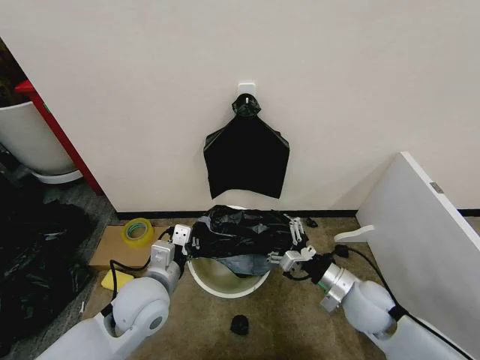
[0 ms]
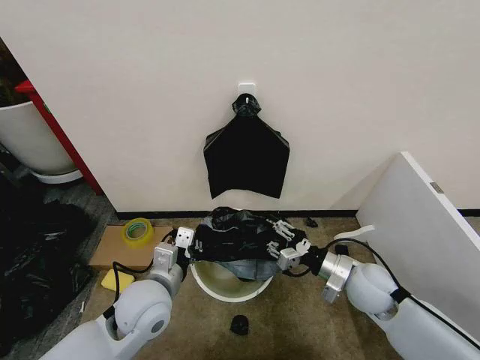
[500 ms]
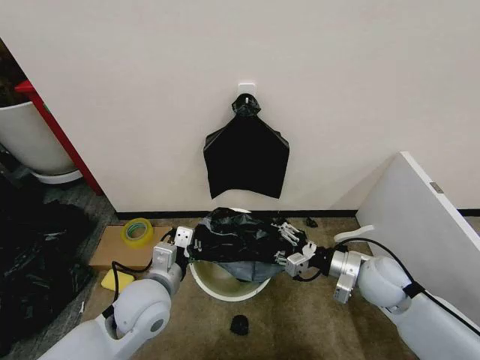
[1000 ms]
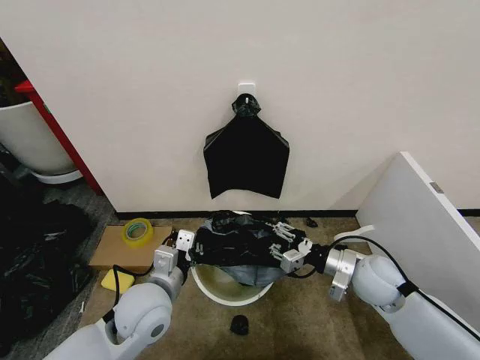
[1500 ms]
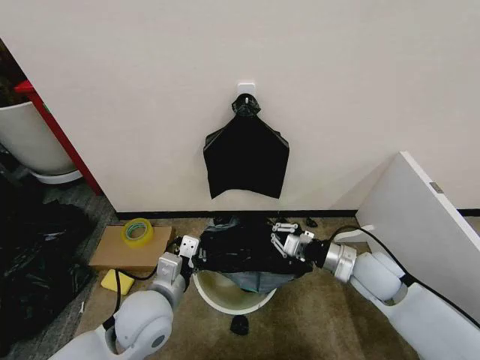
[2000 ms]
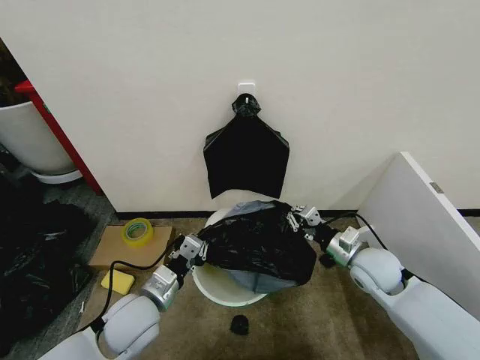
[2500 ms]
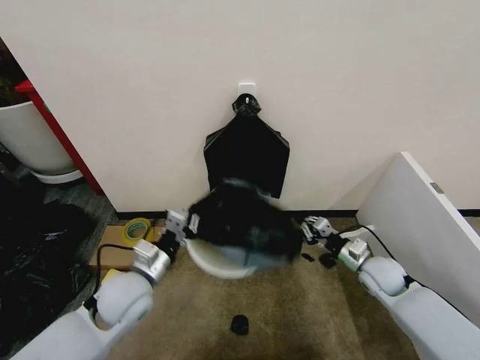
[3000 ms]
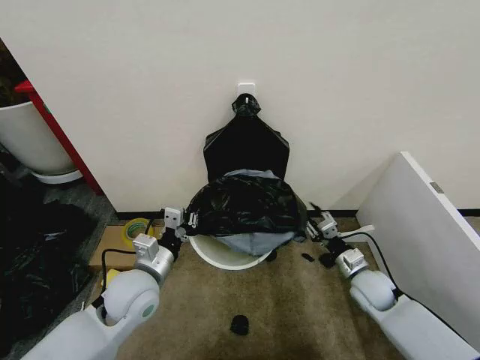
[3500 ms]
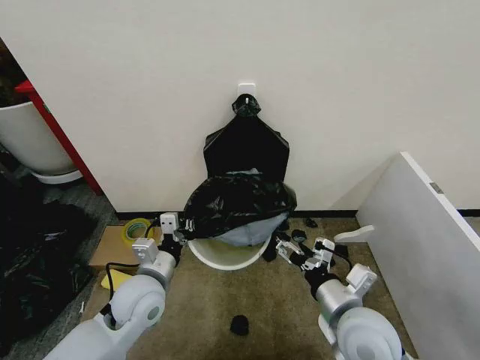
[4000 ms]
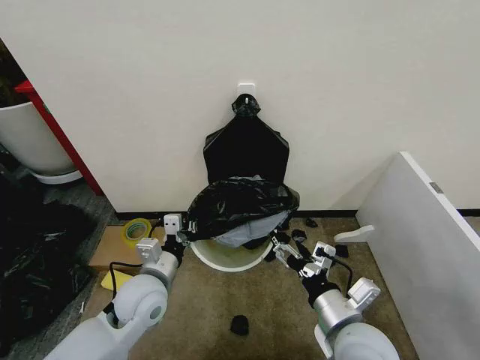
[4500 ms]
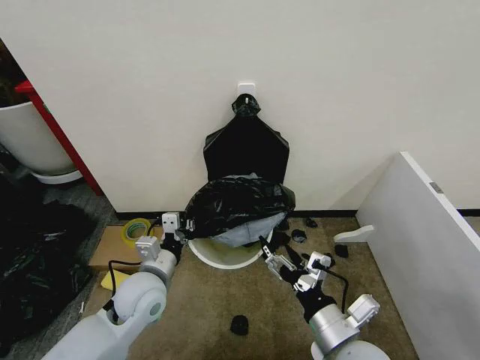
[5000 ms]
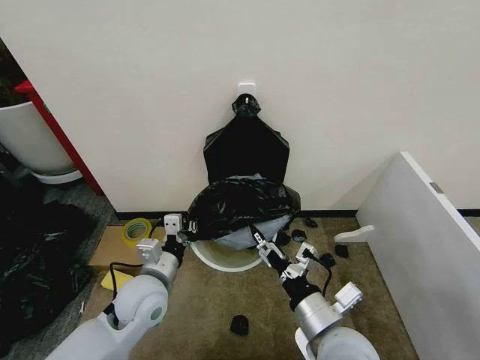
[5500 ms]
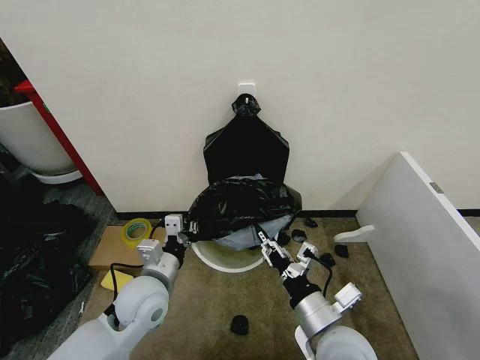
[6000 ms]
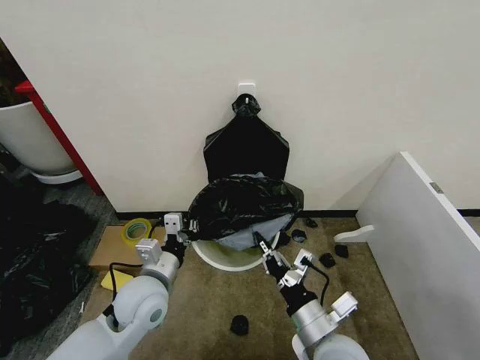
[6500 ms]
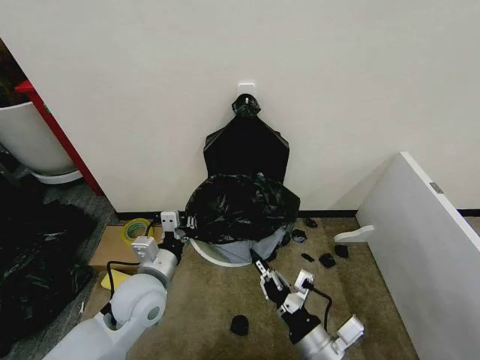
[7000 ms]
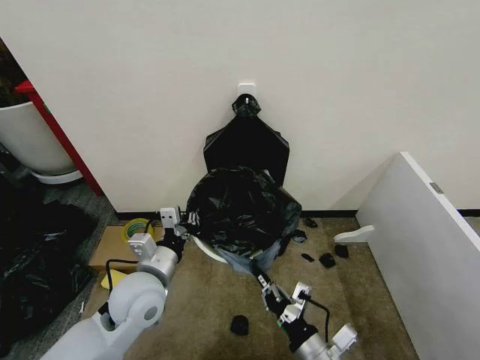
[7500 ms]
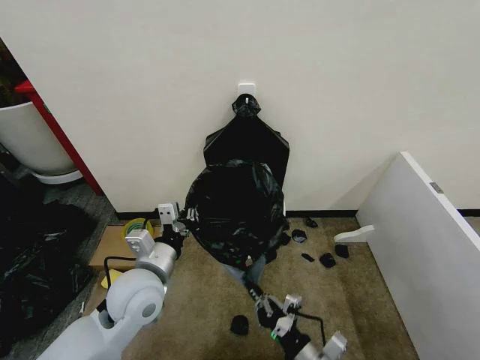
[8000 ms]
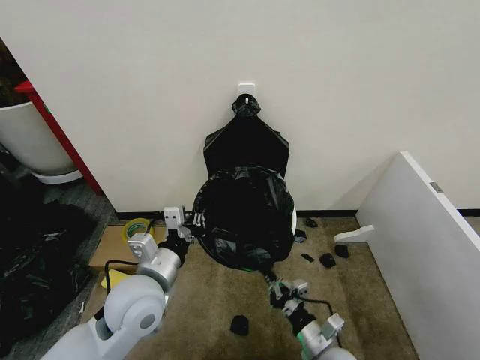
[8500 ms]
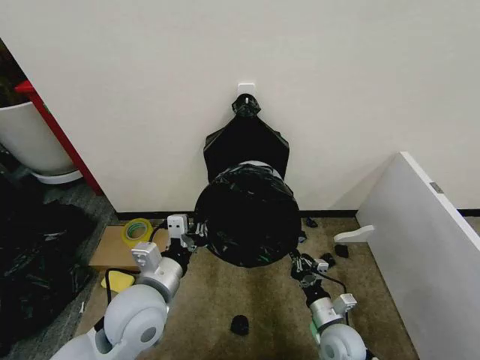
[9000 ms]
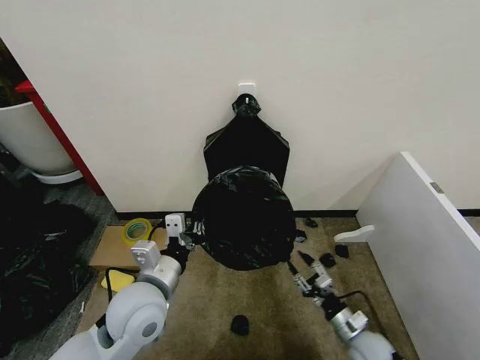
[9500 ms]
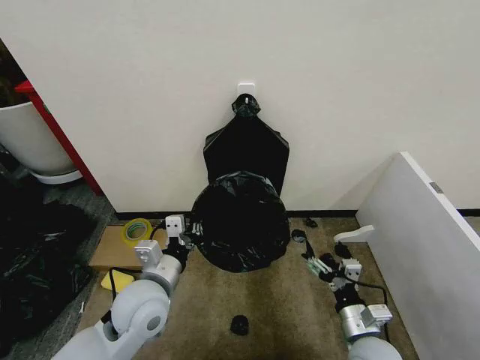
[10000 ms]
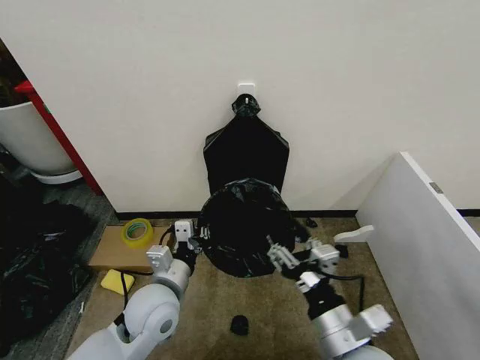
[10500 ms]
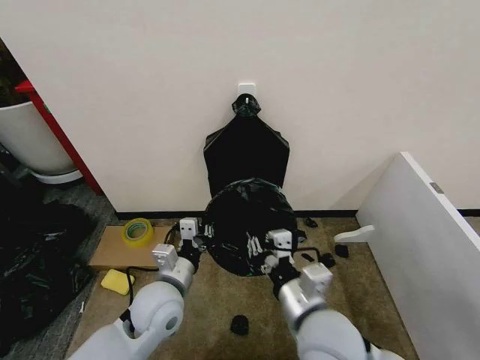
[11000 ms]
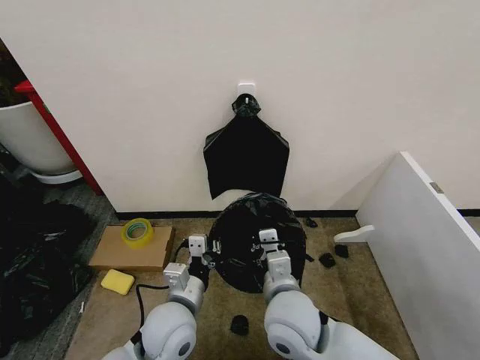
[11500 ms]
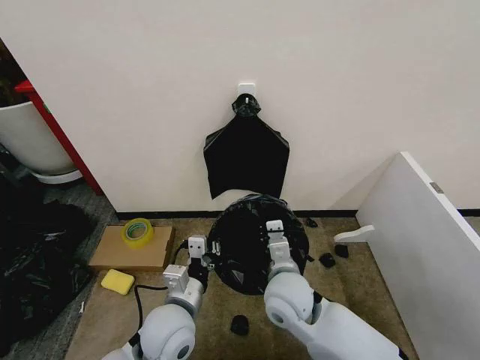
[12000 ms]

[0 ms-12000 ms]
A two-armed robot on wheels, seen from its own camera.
Task of the whole recording: Place the garbage bag over the trash bin.
0 ms to 2000 ms: The right gripper changes place by approximately 5 cm, and closes its fingers.
2000 ms to 4000 ms: The right gripper is displaced backward and to the left by some 10 cm, and opens up.
4000 ms to 6000 ms: The right gripper goes roughly 5 cm to the left and backward, and closes up.
6000 ms to 8000 ms: The right gripper travels downward and backward by roughly 10 cm, and closes its fingers.
8000 ms to 10000 ms: The right gripper shifts some 10 cm to the right and forward, and opens up.
10000 ms to 12000 ms: The right gripper moves to the left, forward and upward, approximately 20 cm, and closes its fingers, while the left gripper shifts by about 5 cm.

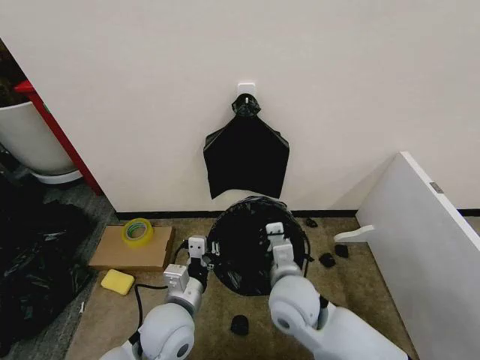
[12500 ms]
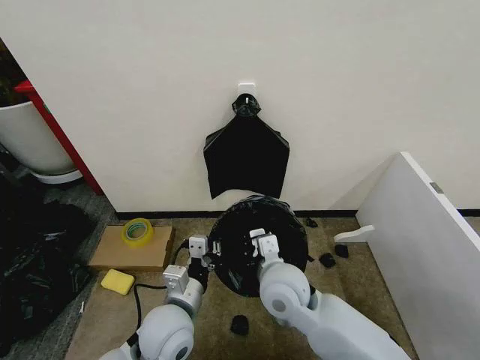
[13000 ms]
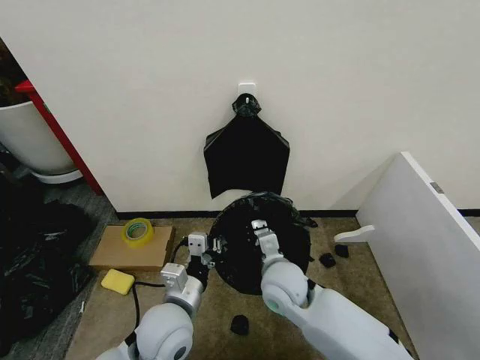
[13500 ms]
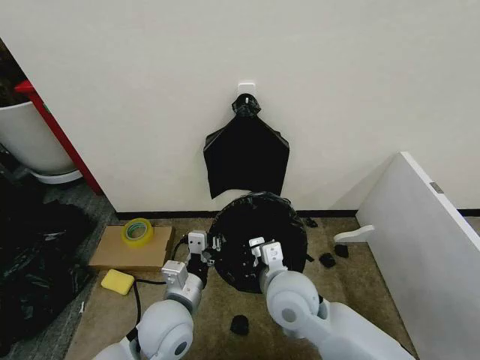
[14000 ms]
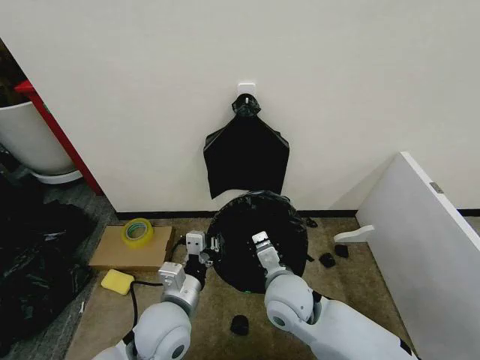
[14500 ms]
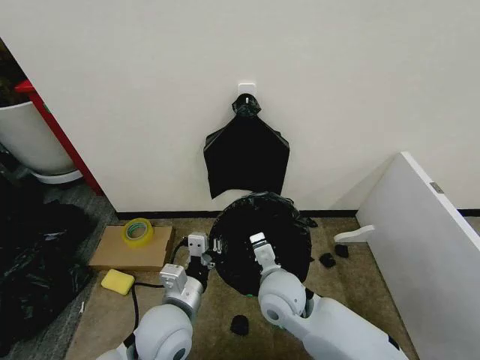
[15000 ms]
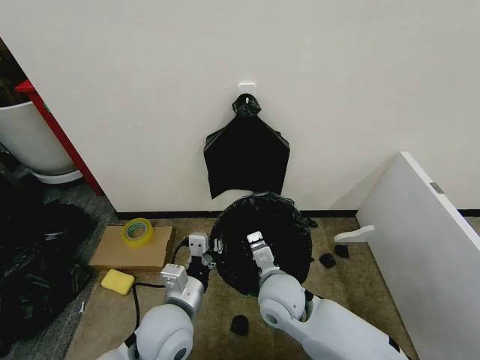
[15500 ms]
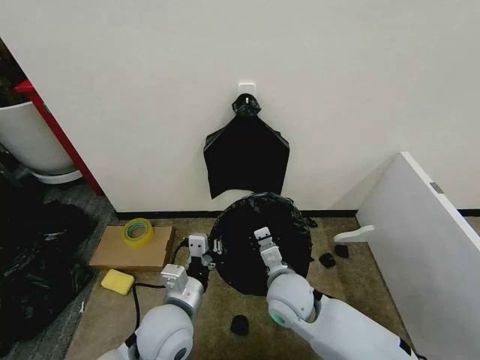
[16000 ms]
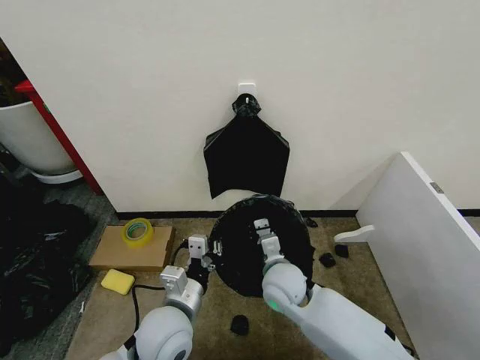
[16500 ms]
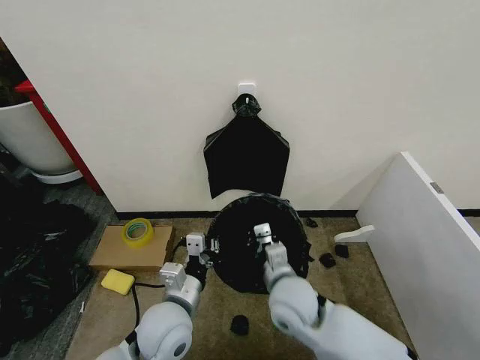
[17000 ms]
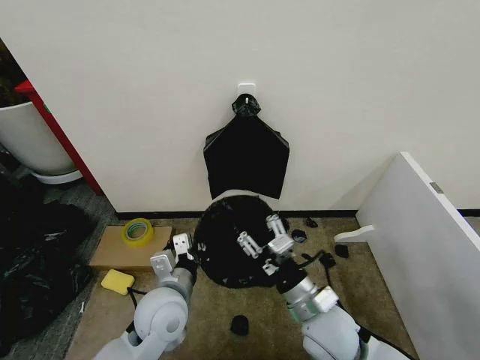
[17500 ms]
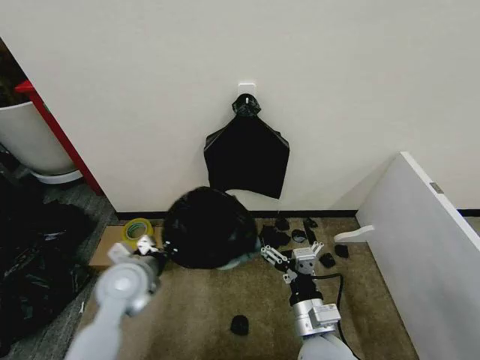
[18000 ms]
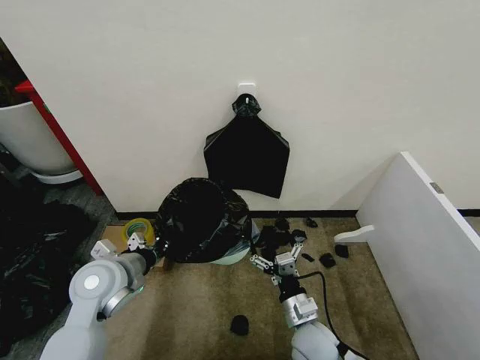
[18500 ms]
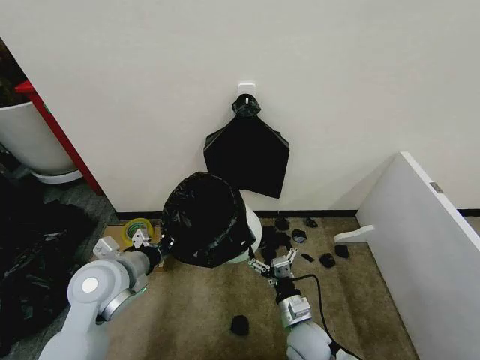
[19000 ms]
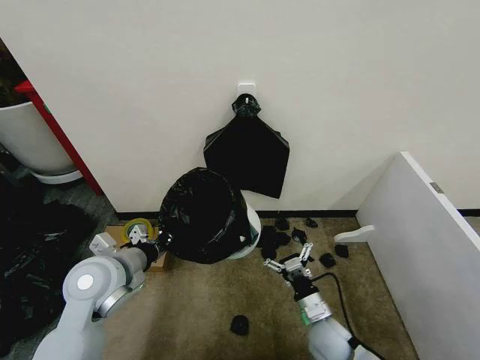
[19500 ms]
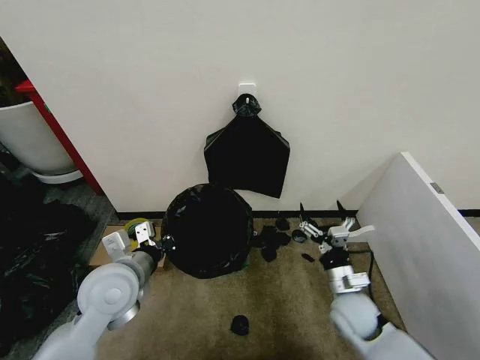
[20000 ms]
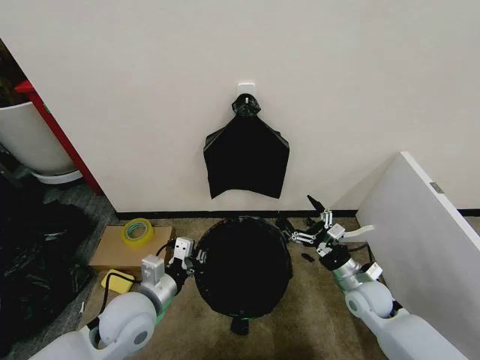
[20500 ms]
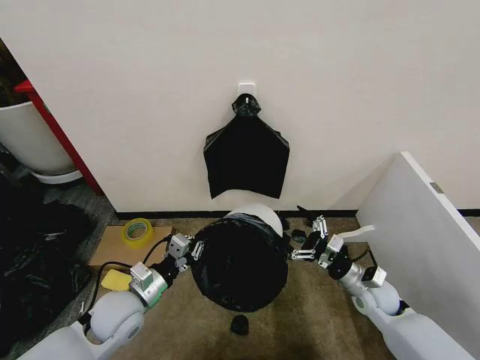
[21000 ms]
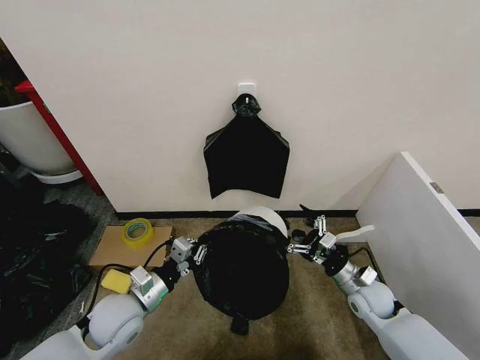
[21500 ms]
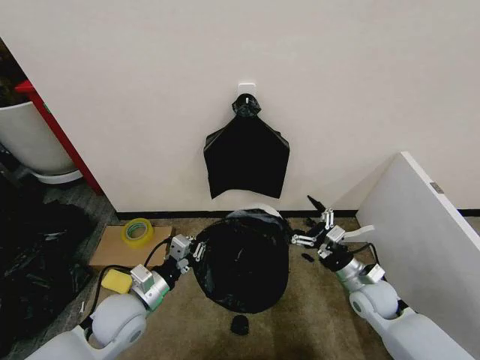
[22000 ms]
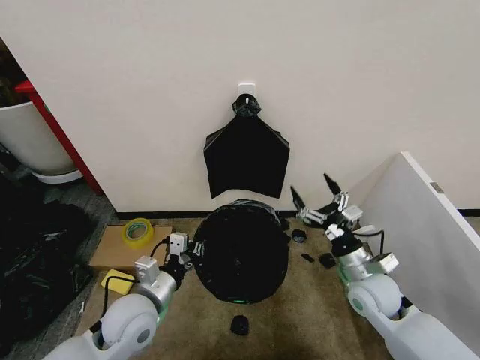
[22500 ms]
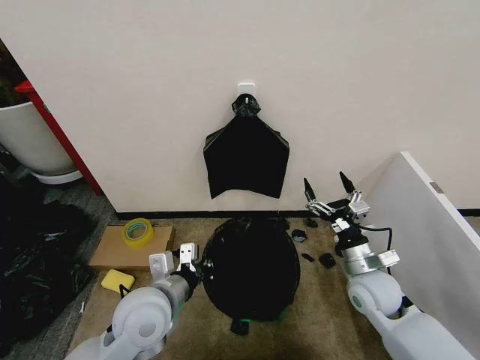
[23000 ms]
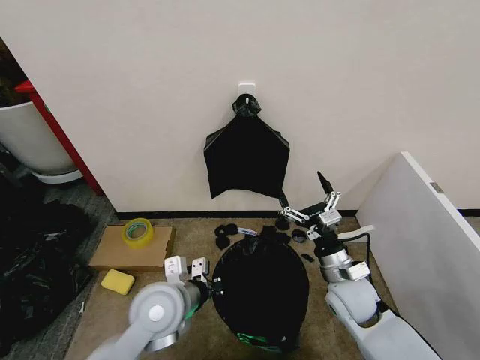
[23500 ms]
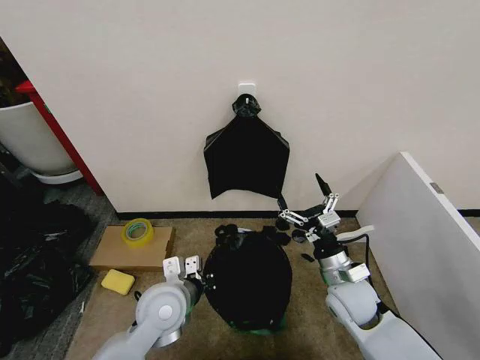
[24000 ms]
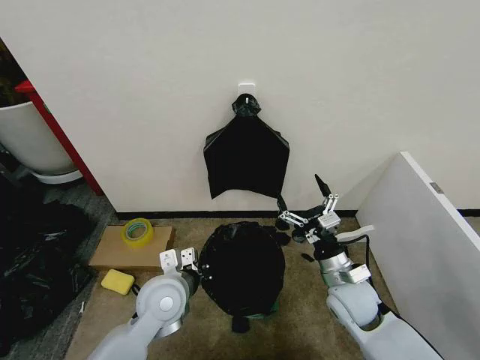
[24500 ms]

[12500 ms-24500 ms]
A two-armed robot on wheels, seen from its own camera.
Task of the whole recording: Place the garbage bag over the trash bin.
14500 ms to 16500 ms: The right gripper moves about 5 cm.
16500 ms to 18500 ms: The left gripper goes roughly 15 cm to the left and forward. Meanwhile the right gripper travels backward, downward and to the right by about 15 cm, and opens.
18500 ms to 20500 ms: The right gripper shifts some 20 cm to the right and forward. The left gripper shifts about 10 cm to the right and backward.
20500 ms to 22500 ms: The right gripper shifts roughly 5 cm upward.
22500 ms to 24500 ms: The right gripper moves approximately 5 cm. Meanwhile the left gripper is displaced to the right by roughly 5 cm.

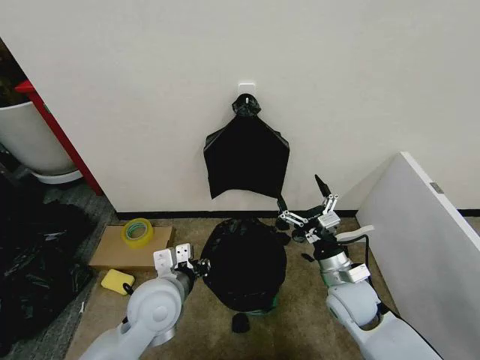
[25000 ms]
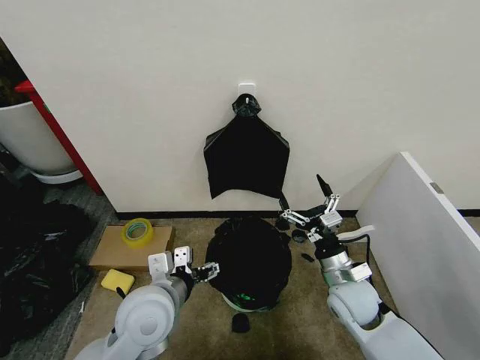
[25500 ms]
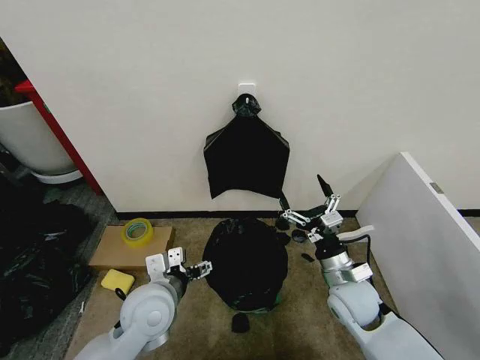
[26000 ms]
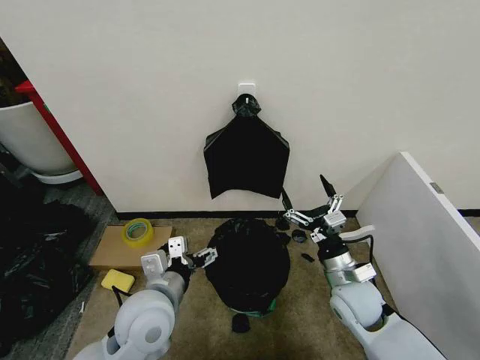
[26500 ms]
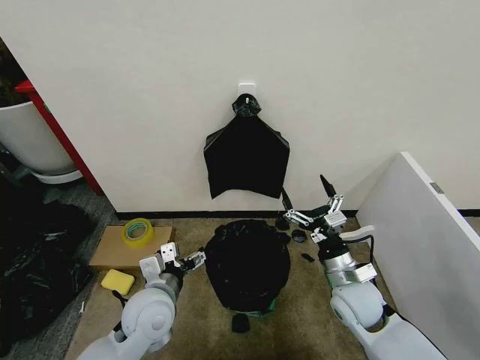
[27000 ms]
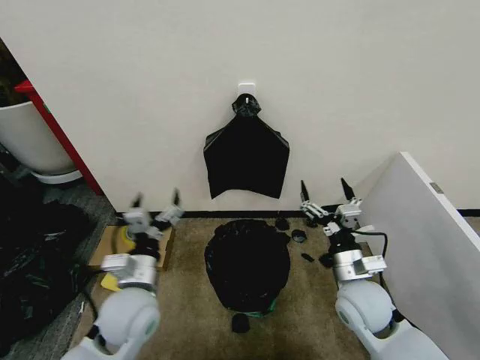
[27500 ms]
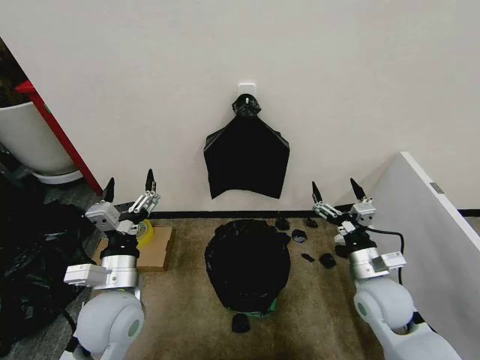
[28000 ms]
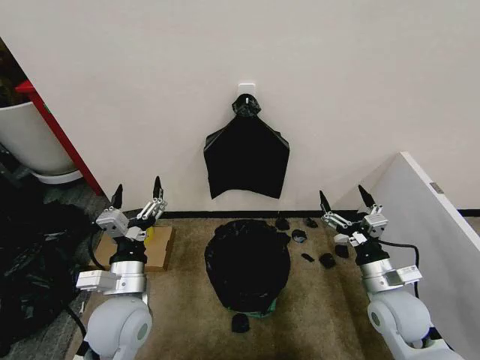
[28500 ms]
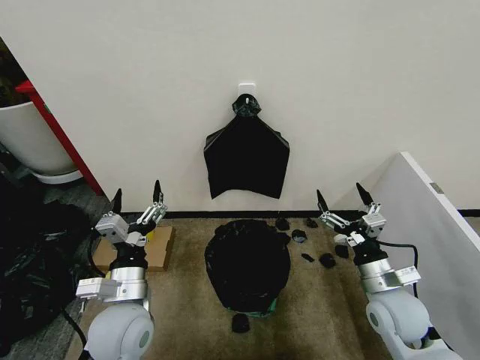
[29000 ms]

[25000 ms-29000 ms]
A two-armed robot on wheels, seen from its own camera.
Task of the whole recording: Place the garbage bag over the trash bin.
25000 ms to 27000 ms: The left gripper opens its fingers.
27000 ms to 29000 ms: The right gripper heads to the right, covering about 5 cm; the left gripper moves about 5 cm.
